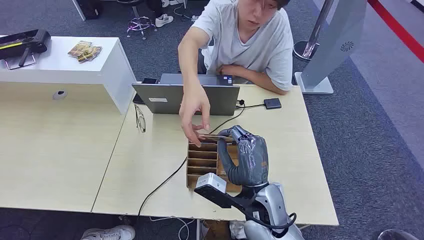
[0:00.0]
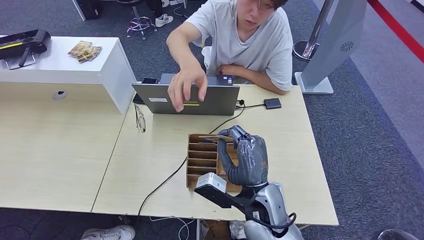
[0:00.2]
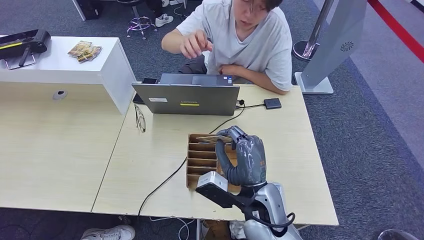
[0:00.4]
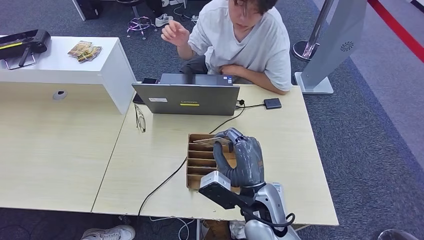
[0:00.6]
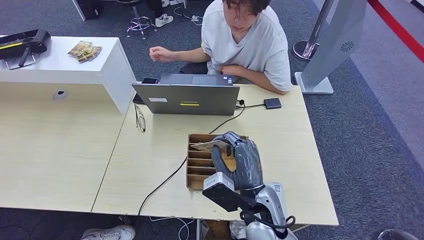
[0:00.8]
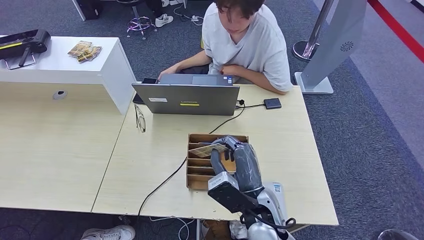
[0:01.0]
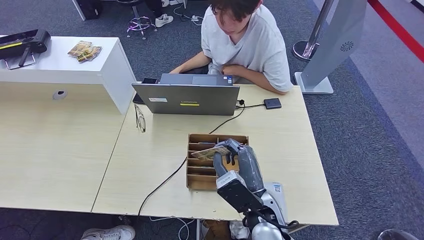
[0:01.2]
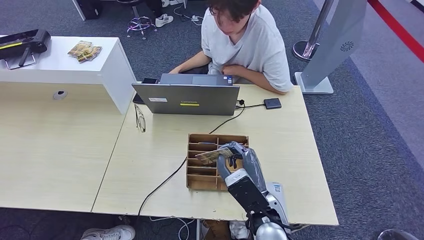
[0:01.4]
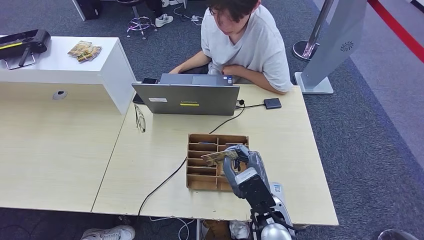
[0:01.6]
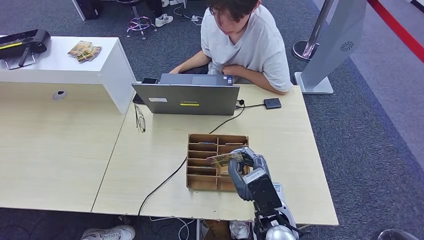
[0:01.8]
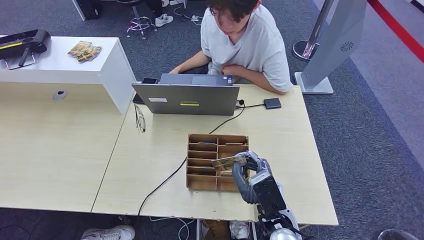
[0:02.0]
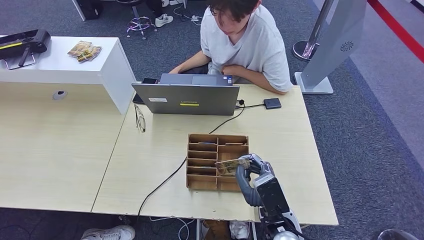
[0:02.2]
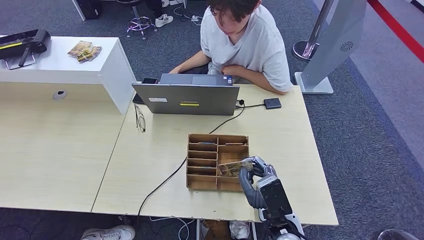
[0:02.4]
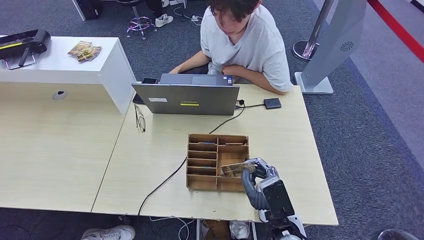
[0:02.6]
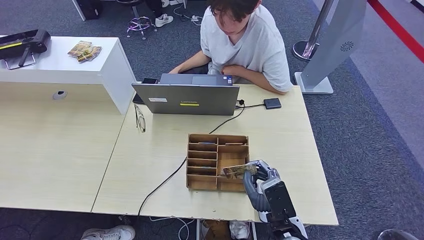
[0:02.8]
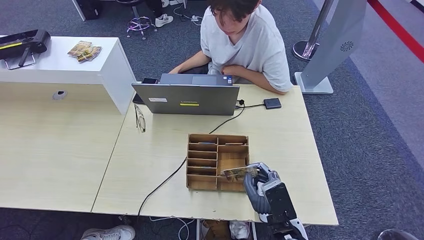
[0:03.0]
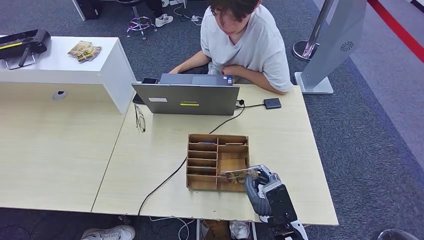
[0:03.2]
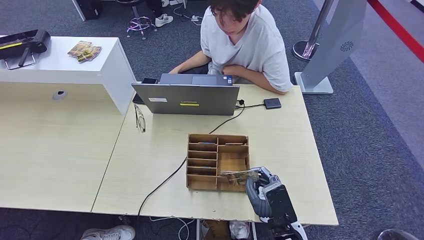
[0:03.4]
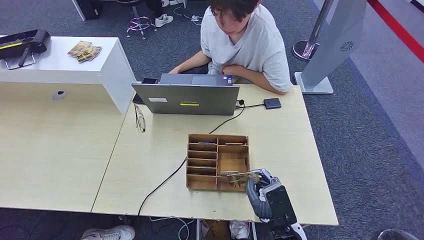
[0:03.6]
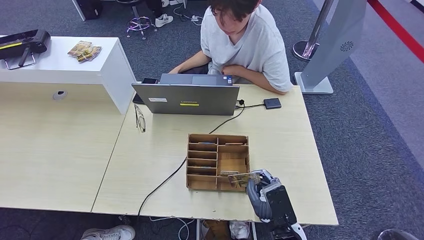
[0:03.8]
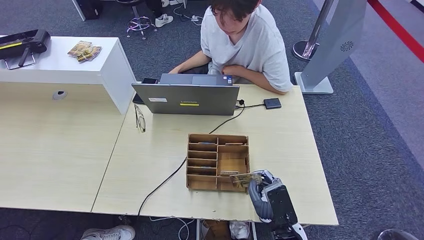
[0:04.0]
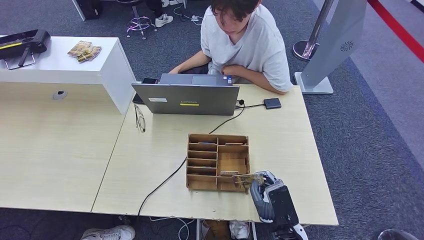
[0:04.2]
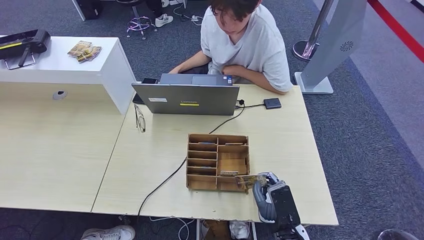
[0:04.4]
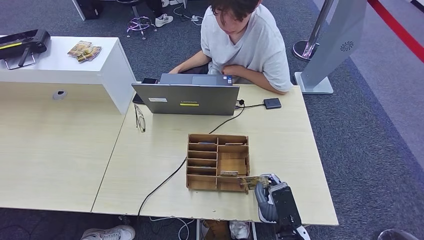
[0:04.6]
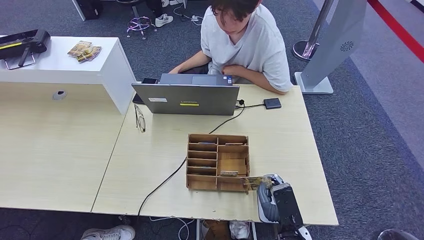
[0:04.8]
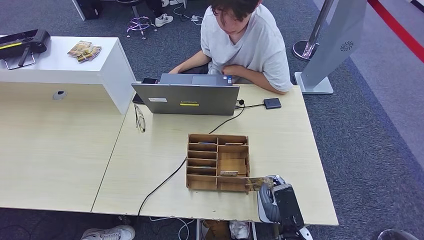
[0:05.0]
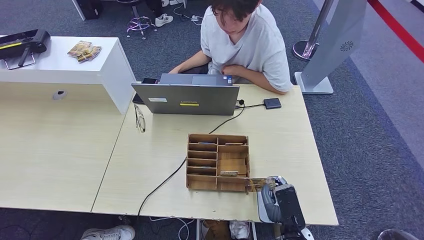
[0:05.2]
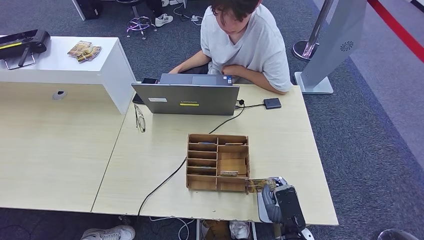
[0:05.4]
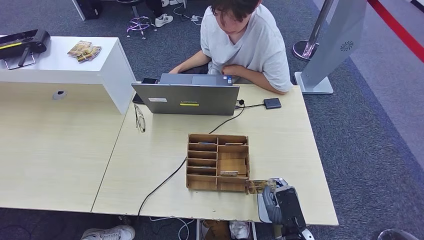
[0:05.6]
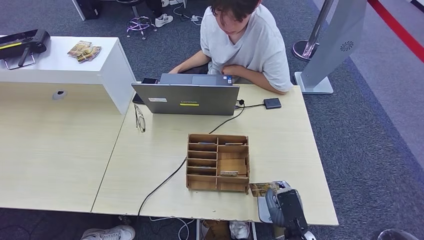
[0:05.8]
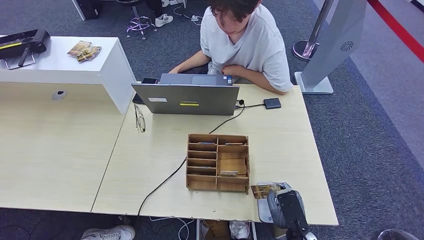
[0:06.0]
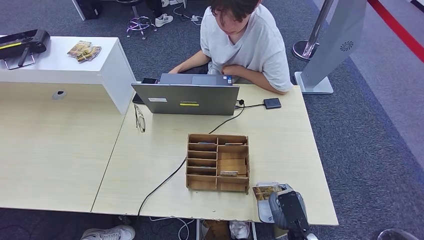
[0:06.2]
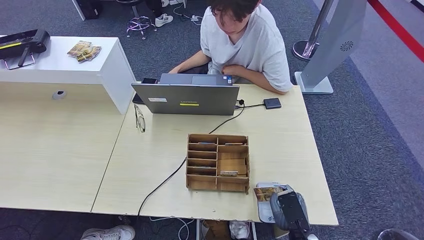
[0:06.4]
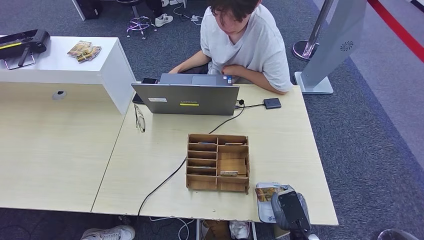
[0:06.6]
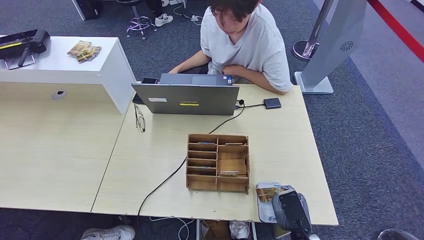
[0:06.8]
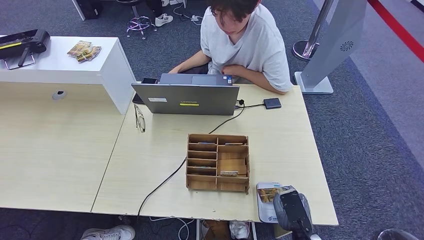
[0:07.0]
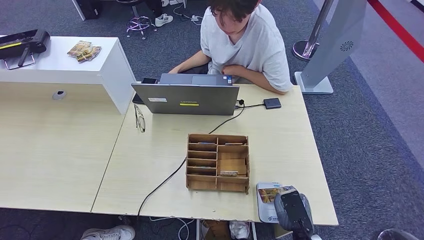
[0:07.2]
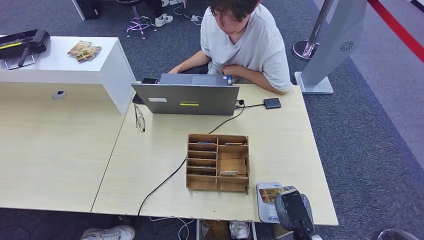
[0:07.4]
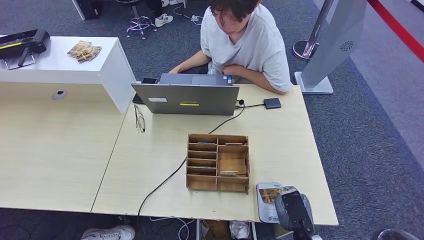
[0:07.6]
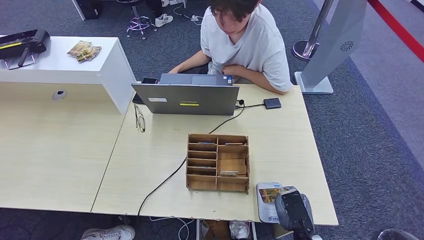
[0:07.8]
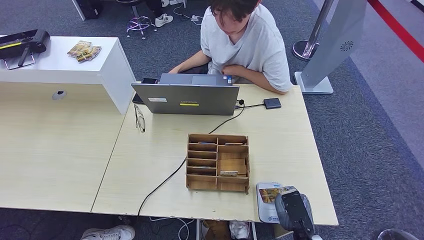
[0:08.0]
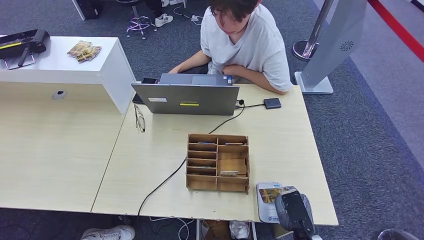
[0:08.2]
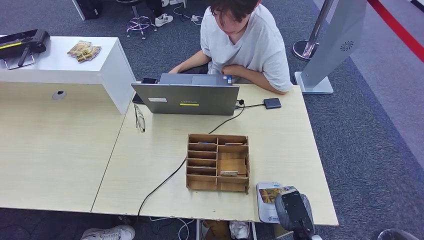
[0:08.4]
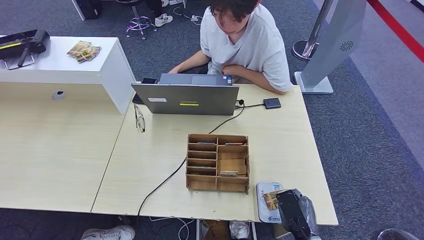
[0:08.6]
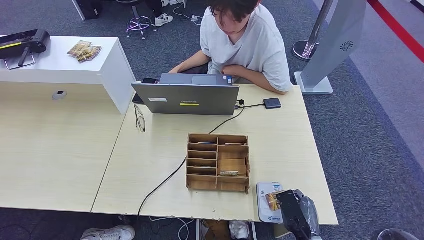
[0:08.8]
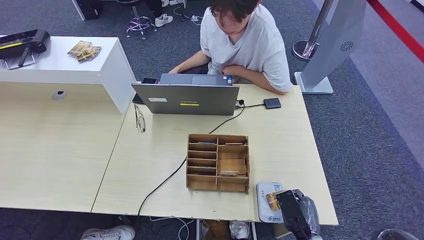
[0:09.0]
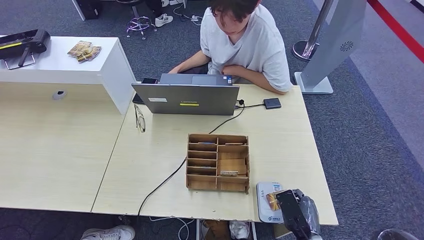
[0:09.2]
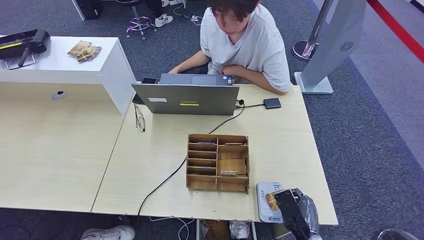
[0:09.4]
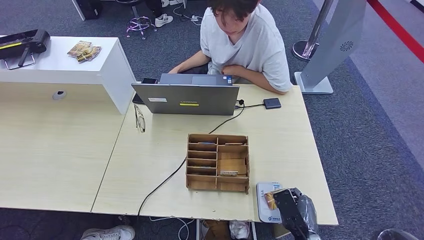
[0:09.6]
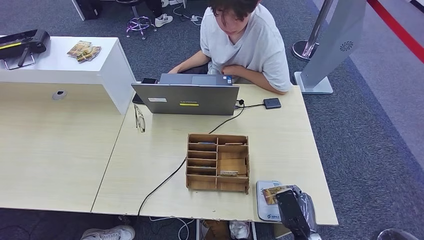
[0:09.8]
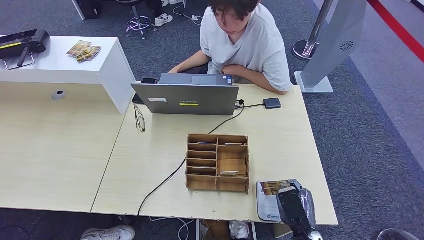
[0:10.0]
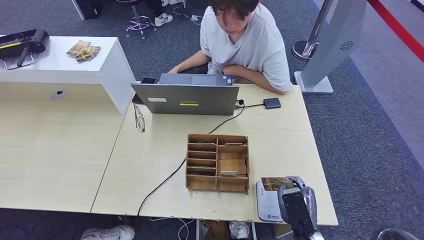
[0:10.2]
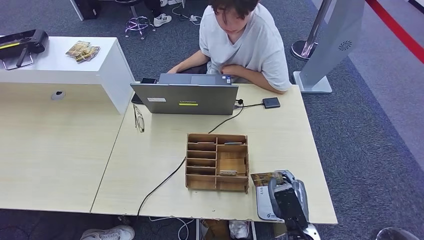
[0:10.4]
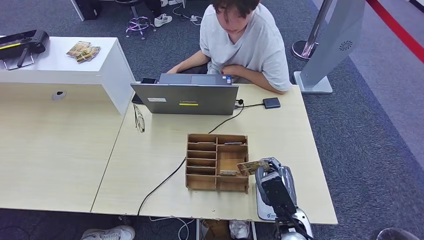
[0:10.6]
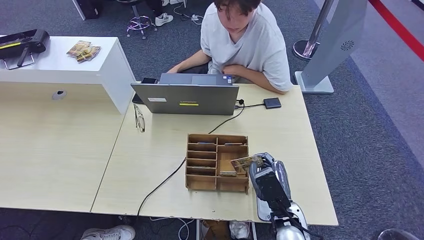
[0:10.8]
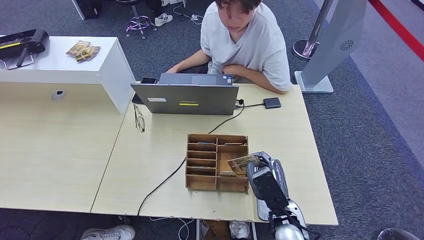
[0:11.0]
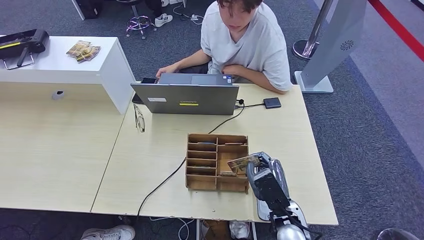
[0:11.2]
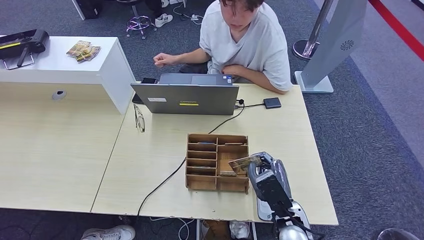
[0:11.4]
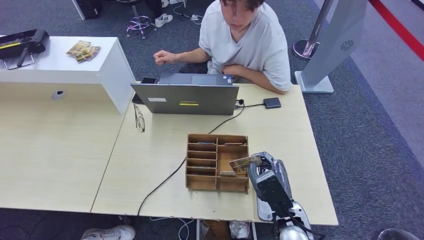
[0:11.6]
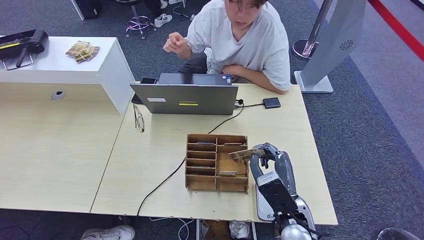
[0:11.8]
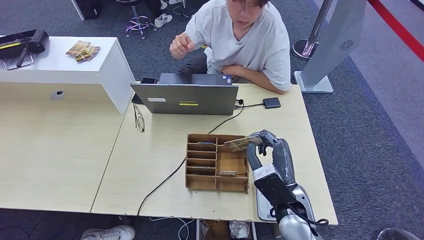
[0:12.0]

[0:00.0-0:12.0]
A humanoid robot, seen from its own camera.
Step, 0:00.0 to 0:01.6: Take the ID card from the person's hand.
Step, 0:01.8 to 0:10.8: Place the ID card on the card reader.
0:01.6 to 0:03.0: The right hand shifts by about 5 cm.
0:03.0 to 0:04.4: There are only small adjustments of the hands.
0:04.4 to 0:07.6: The hands make only small movements.
0:07.6 to 0:09.0: The hands move only a little.
0:09.0 to 0:10.4: The right hand shifts by some 5 cm.
0:10.4 to 0:12.0: The left hand goes approximately 5 cm to the left. The right hand travels upward and forward by approximately 10 cm.

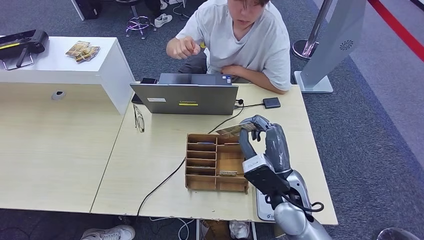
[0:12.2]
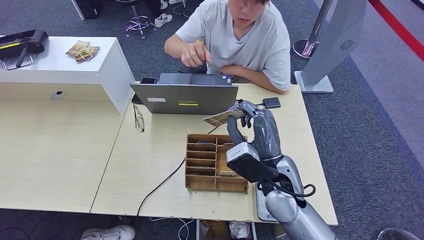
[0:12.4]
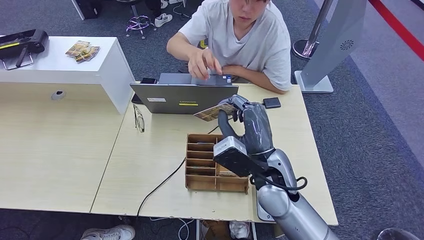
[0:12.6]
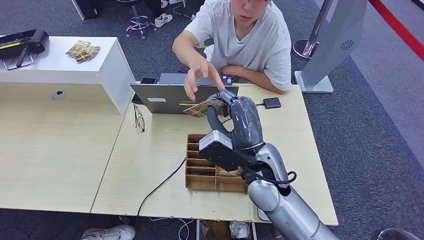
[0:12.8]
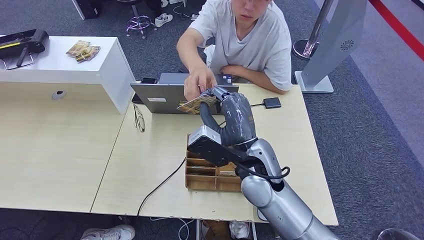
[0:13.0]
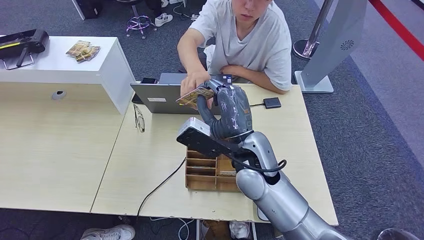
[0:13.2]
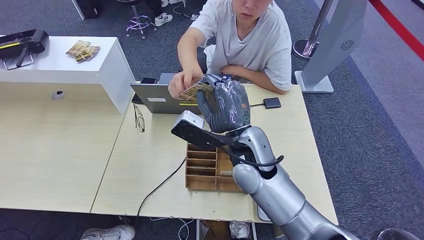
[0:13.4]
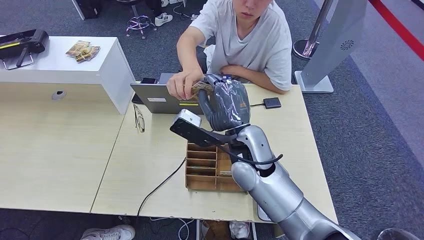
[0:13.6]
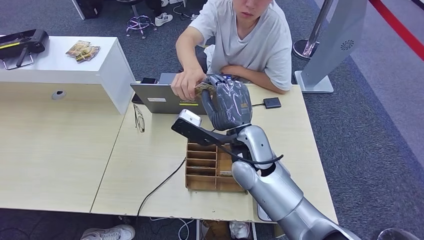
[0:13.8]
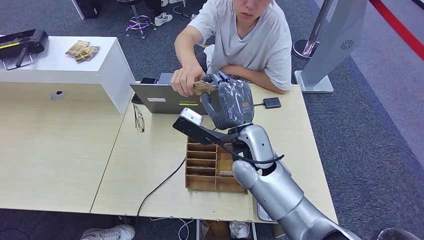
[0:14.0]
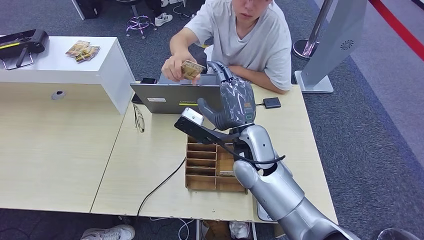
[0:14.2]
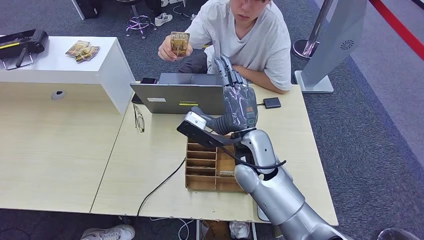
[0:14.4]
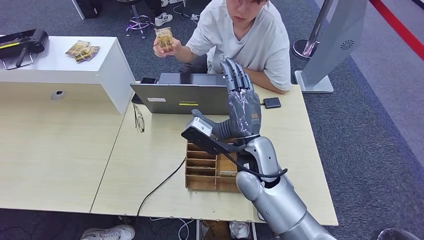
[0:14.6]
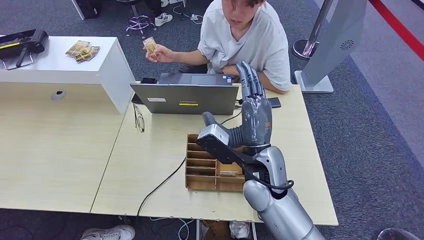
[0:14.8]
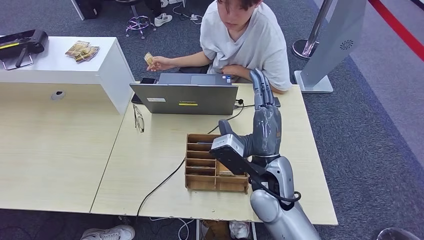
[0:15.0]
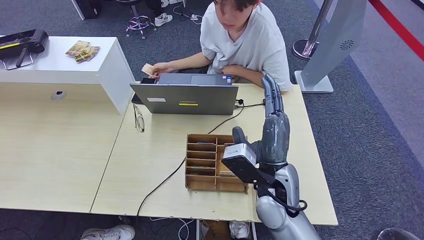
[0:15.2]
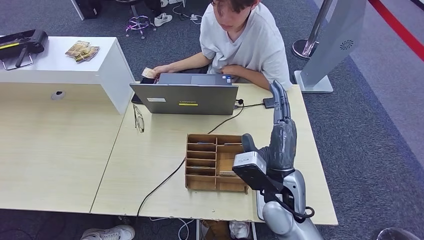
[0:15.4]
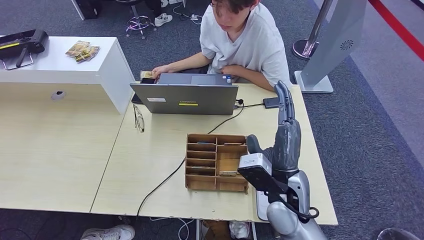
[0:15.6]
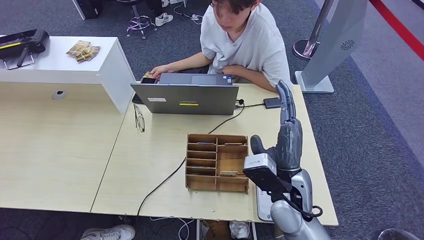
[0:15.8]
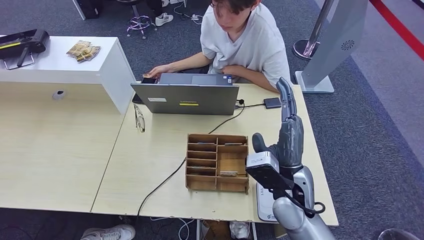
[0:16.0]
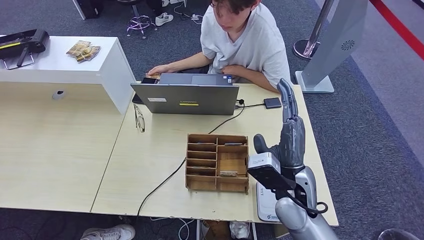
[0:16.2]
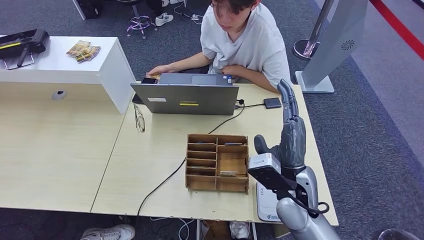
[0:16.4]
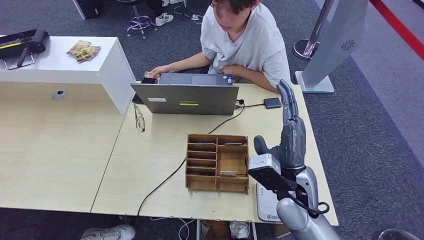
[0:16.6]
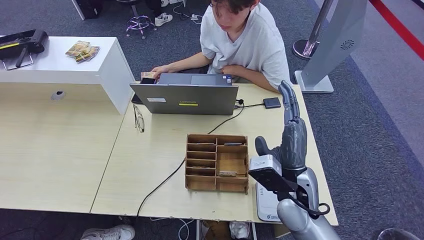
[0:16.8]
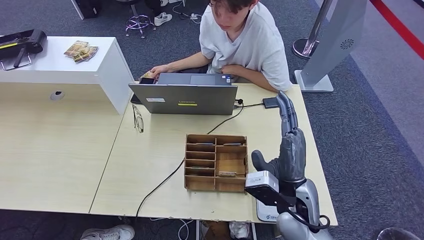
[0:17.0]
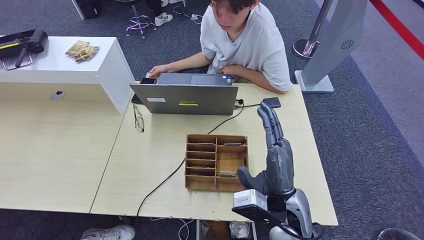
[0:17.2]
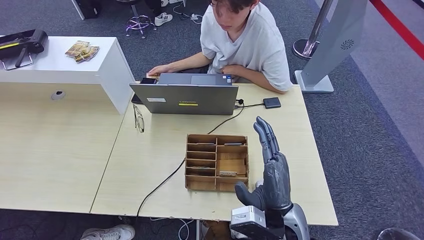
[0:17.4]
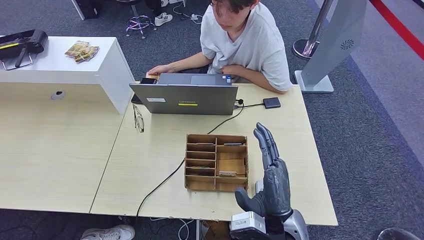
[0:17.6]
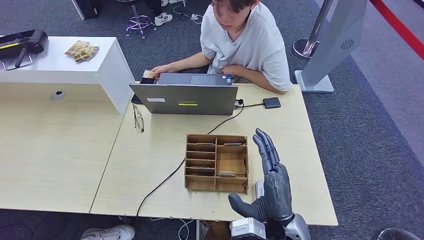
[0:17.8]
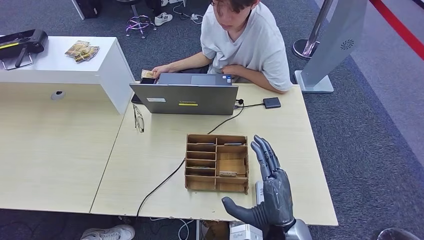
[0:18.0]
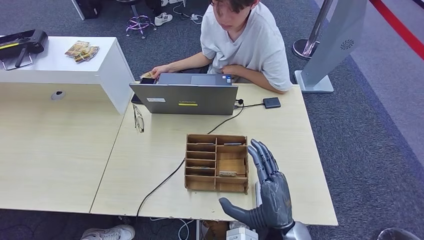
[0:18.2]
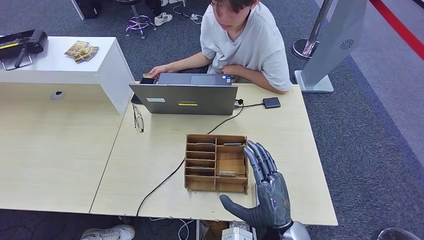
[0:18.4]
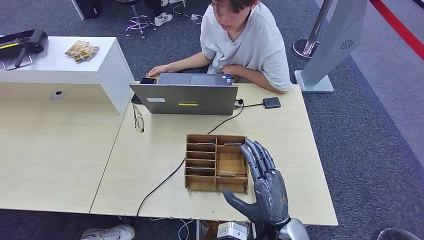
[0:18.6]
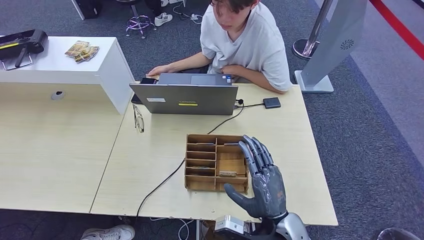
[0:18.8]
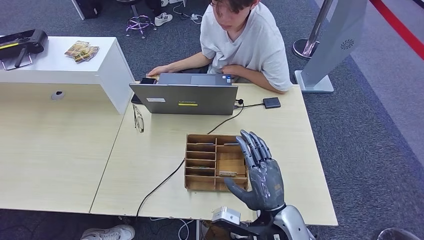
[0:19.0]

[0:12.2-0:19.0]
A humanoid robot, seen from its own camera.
Step, 0:12.2 to 0:14.4: Hand the ID card to the person.
0:12.2 to 0:13.6: The right hand shifts some 15 cm to the left, forward and upward.
0:13.6 to 0:15.0: The right hand travels backward by approximately 5 cm.
0:15.0 to 0:16.2: The right hand moves to the right, some 5 cm.
0:16.2 to 0:17.6: The two hands go about 10 cm backward.
